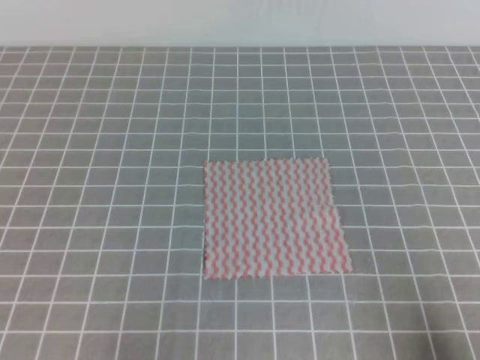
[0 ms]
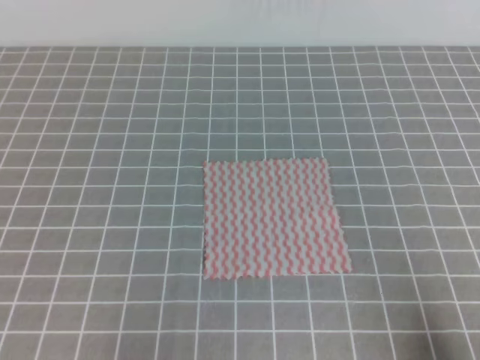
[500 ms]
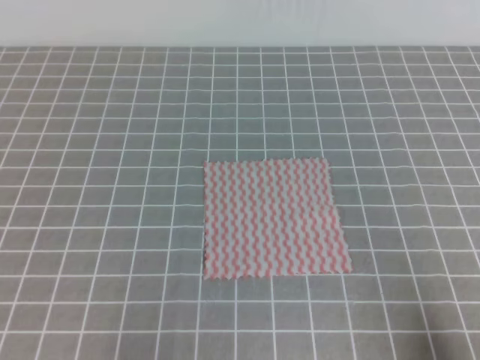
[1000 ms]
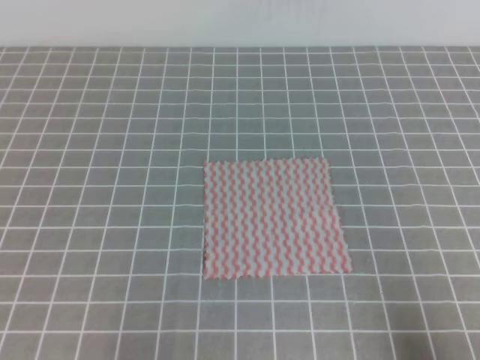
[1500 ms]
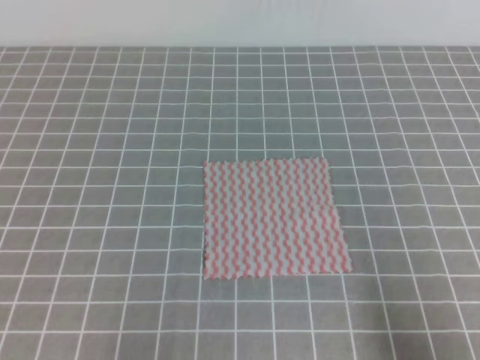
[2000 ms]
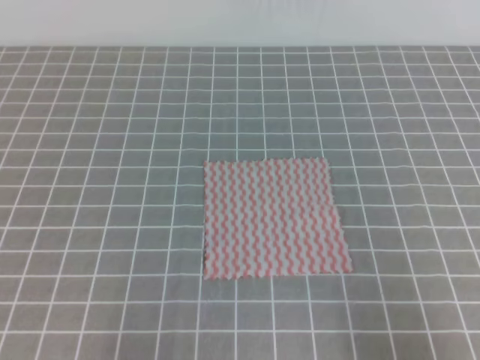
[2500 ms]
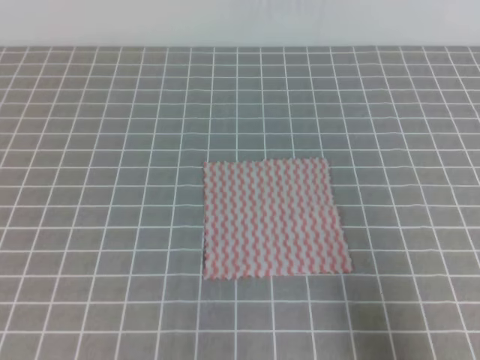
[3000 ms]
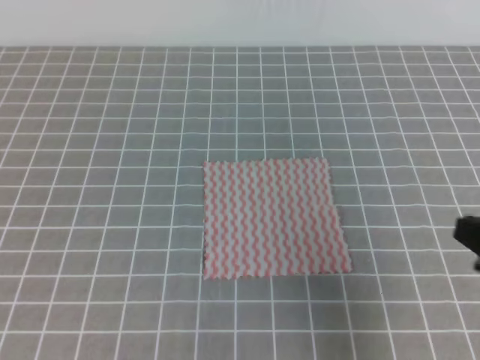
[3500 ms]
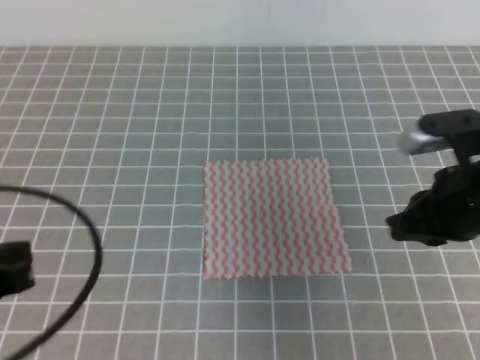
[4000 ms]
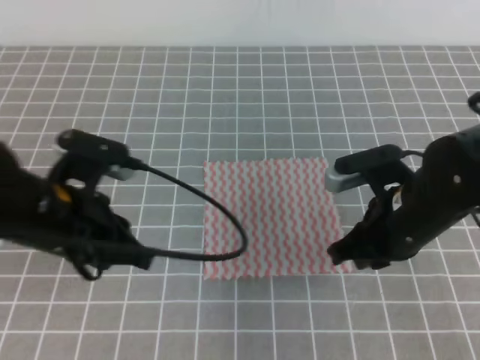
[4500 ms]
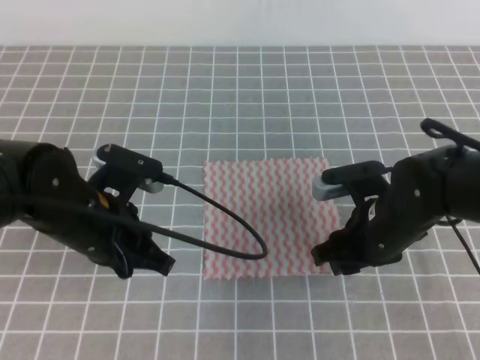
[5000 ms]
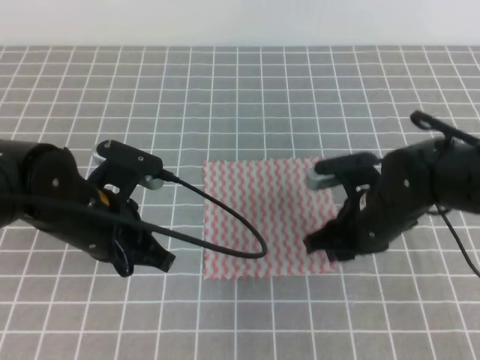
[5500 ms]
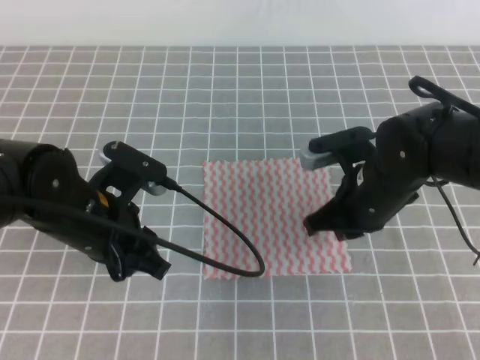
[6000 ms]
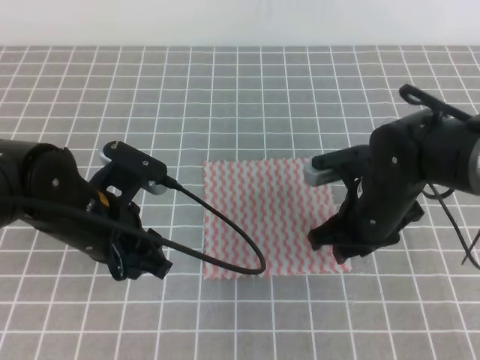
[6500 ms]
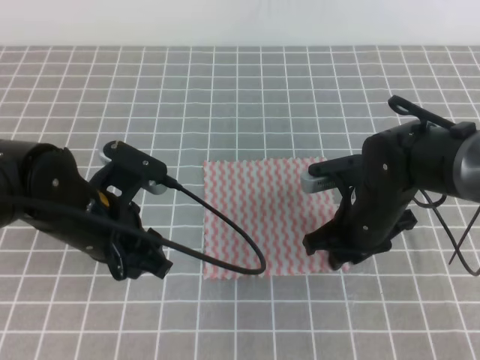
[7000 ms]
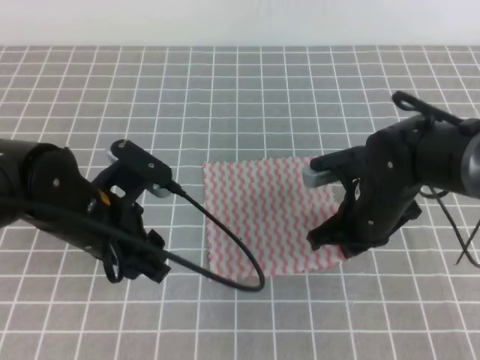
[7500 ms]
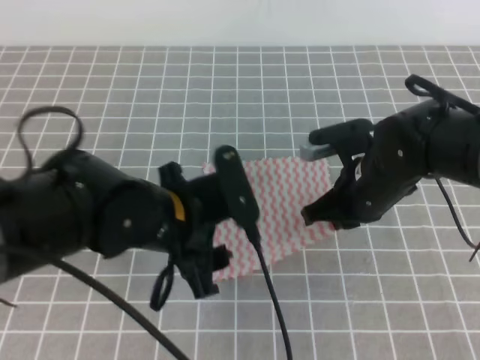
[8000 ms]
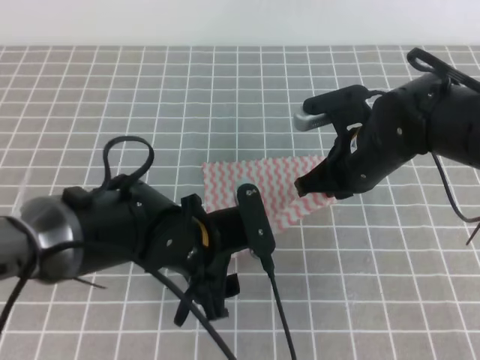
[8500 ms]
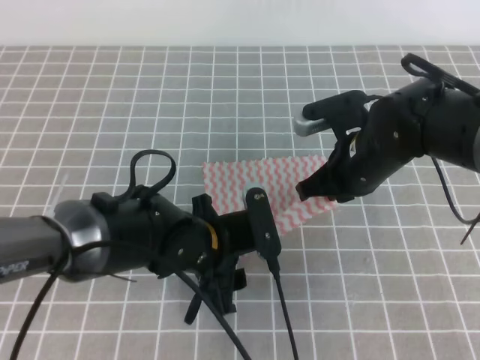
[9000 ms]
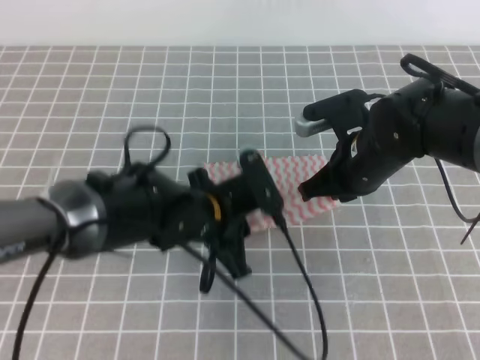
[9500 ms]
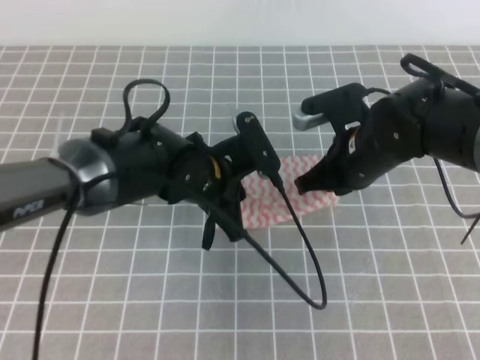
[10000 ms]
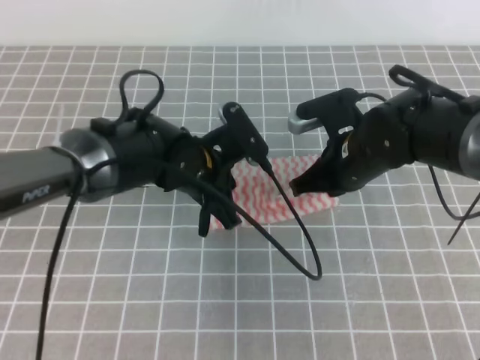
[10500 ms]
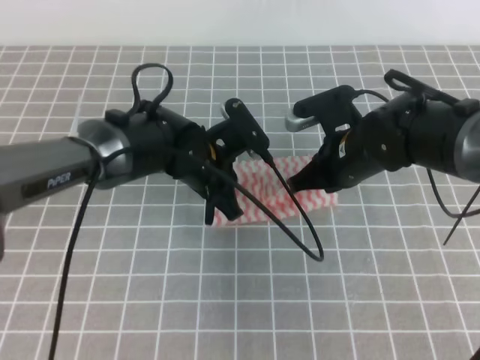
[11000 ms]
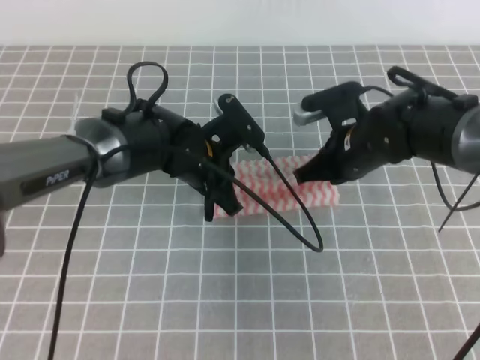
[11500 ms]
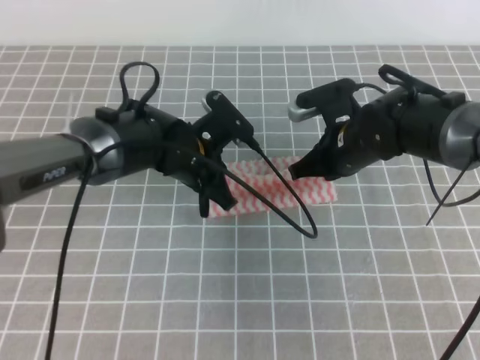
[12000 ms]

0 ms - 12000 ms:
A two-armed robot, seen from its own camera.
2000 ms - 4000 ms: The right gripper goes about 20 cm forward and to the left; the left gripper is displaced upward and forward by some 15 cm.
4000 ms - 6000 ms: The left gripper travels forward, to the right and downward by about 15 cm, and opens its fingers; the right gripper is displaced to the left, forward and downward by about 15 cm, and opens, then closes once more.
6000 ms - 8000 ms: The right gripper opens and closes again. The left gripper is displaced to the right by about 5 cm, and opens up.
8000 ms - 10000 ms: The left gripper travels forward by roughly 10 cm, and closes up.
10000 ms - 12000 ms: The left gripper travels forward by approximately 5 cm; the right gripper changes place by roughly 5 cm.

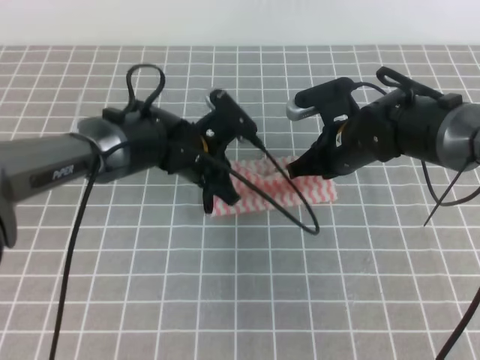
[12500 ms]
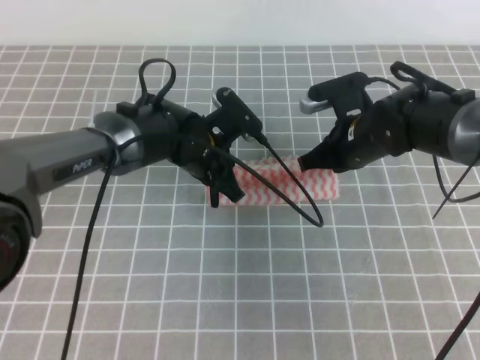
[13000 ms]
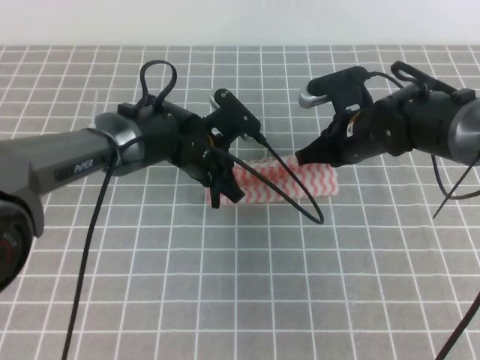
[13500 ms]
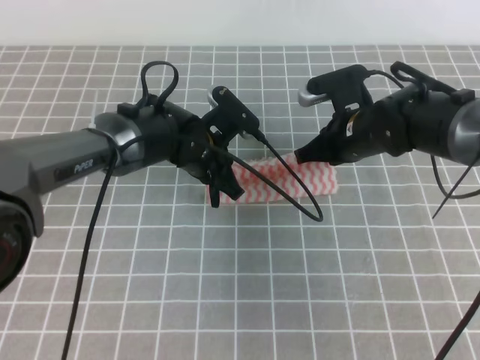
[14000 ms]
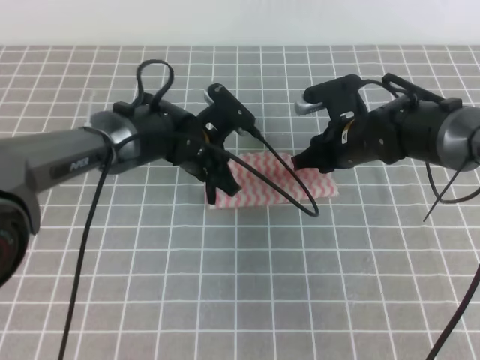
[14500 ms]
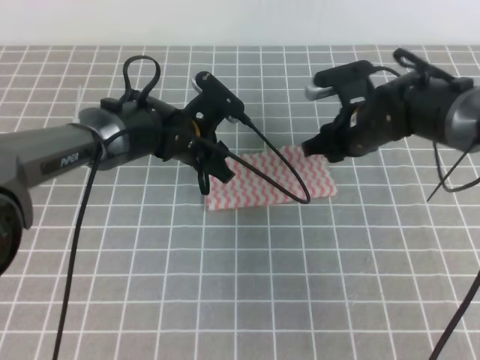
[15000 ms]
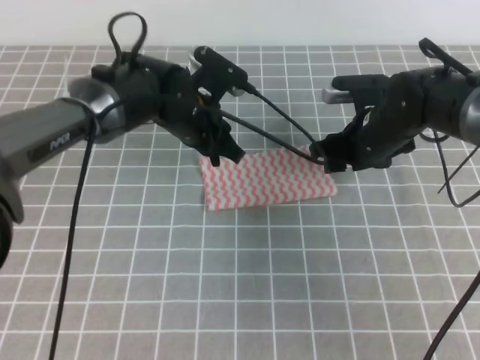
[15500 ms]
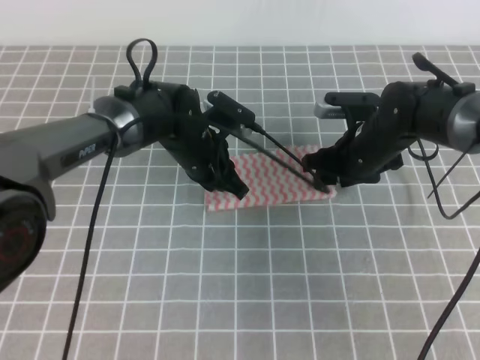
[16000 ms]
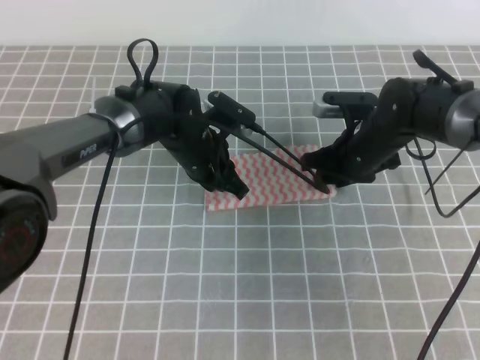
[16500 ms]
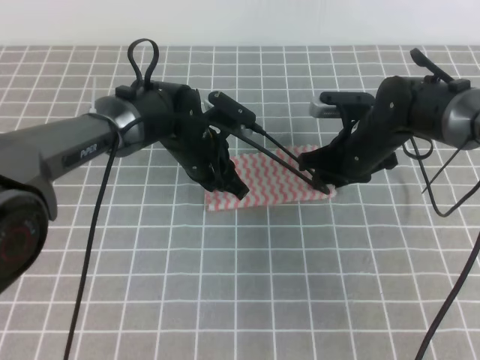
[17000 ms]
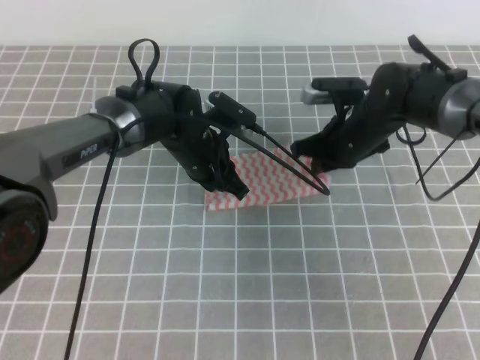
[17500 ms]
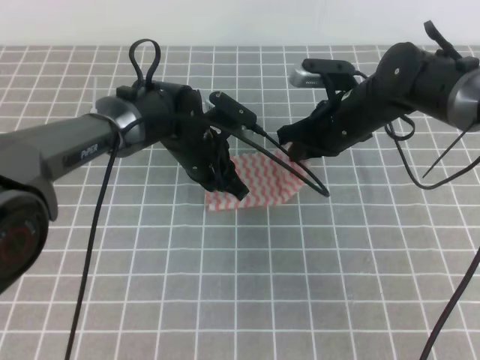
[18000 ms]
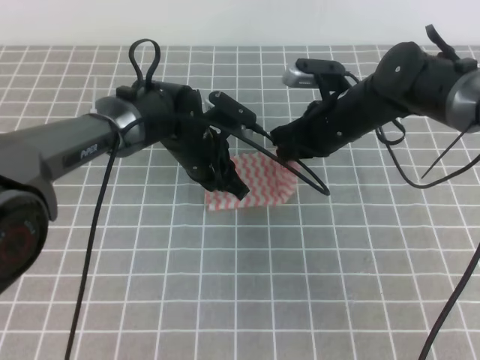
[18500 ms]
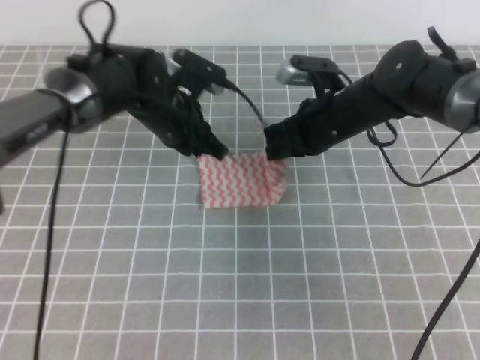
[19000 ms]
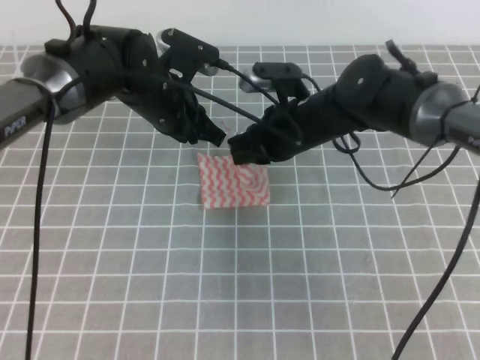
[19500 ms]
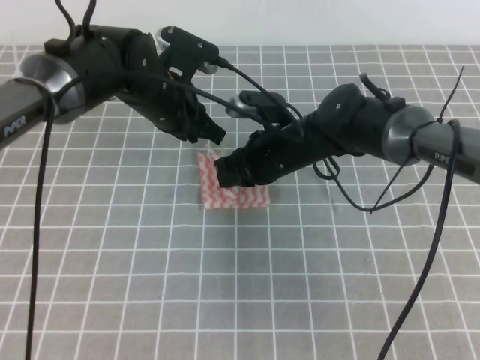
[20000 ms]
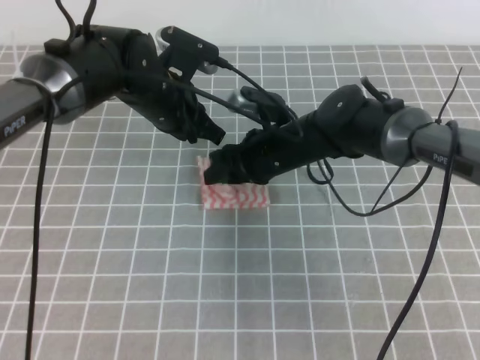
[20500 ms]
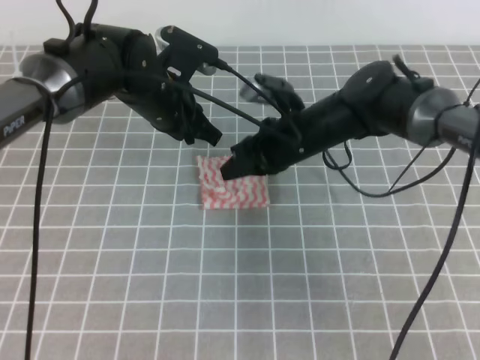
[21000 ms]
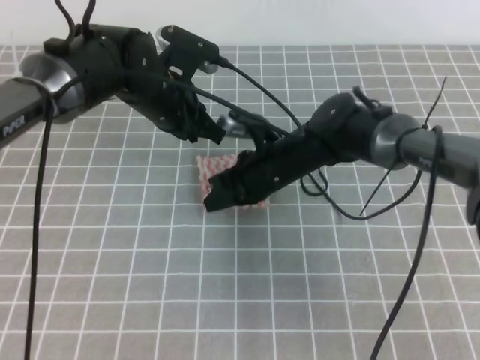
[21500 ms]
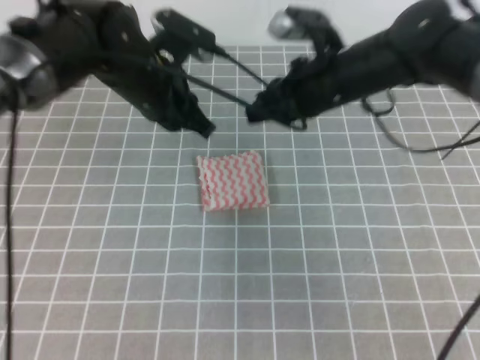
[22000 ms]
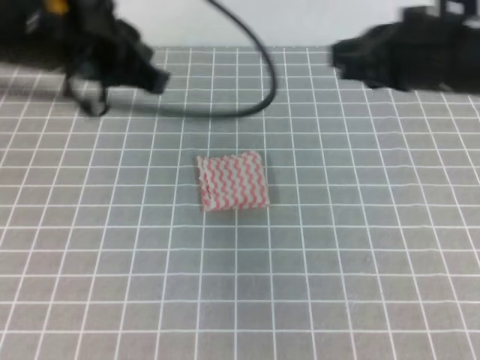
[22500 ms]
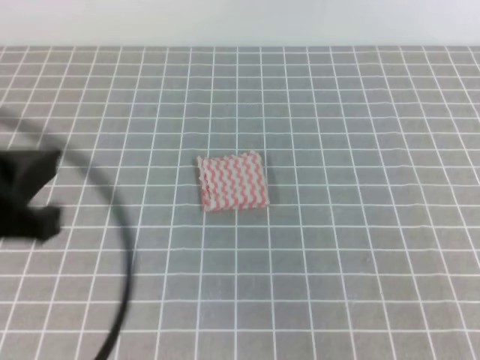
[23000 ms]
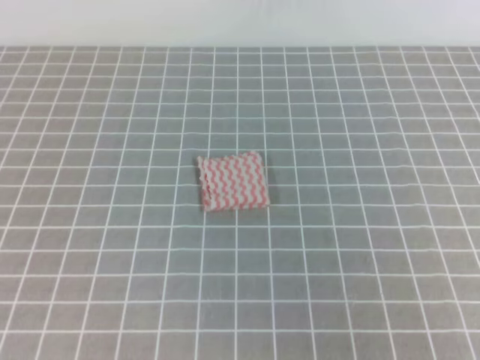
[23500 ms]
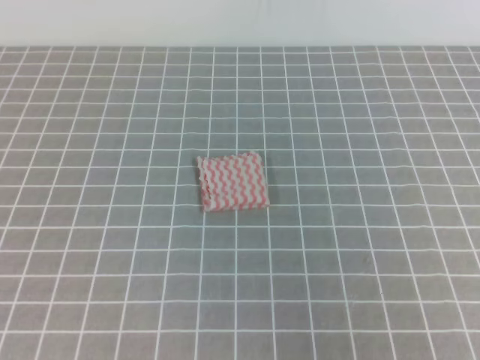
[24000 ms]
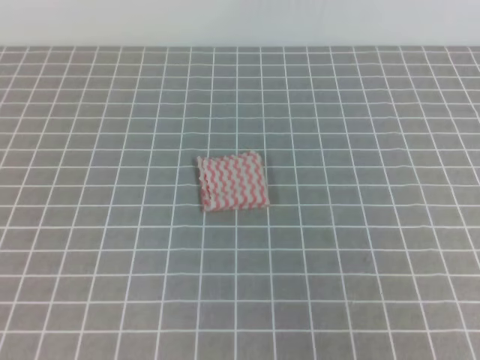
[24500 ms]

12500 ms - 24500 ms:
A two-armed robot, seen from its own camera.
12500 ms - 14500 ms: The right gripper opens its fingers.
14500 ms - 16500 ms: The left gripper opens, then closes again.
16500 ms - 18500 ms: The right gripper shifts by about 5 cm, and closes up.
18500 ms - 20500 ms: The left gripper travels upward by about 10 cm. Meanwhile the right gripper goes roughly 5 cm to the left, and opens up.
20500 ms - 22500 ms: The right gripper moves upward, to the right and backward, about 25 cm, and closes; the left gripper heads upward, backward and to the left, covering roughly 20 cm.
22500 ms - 24500 ms: The right gripper is displaced backward by some 25 cm. The left gripper moves backward and to the left, some 25 cm.

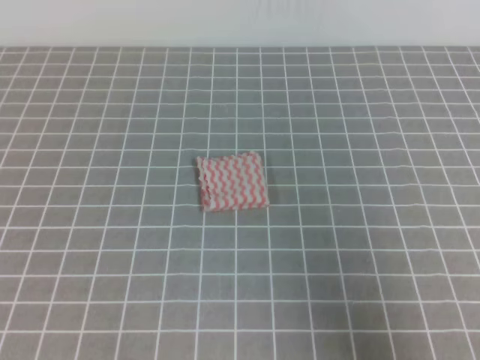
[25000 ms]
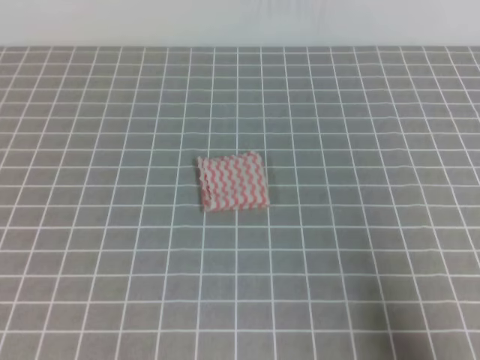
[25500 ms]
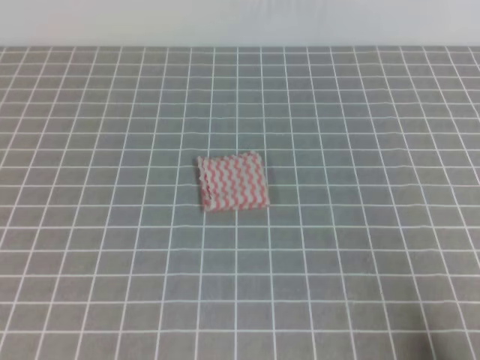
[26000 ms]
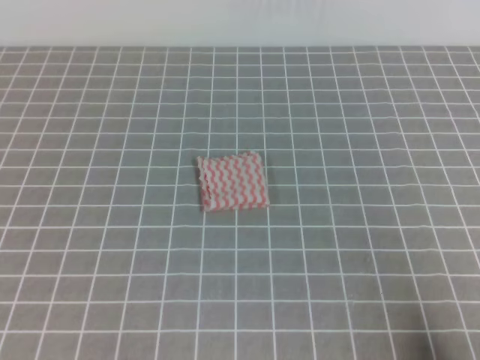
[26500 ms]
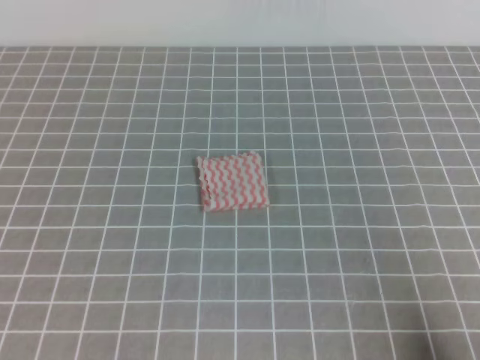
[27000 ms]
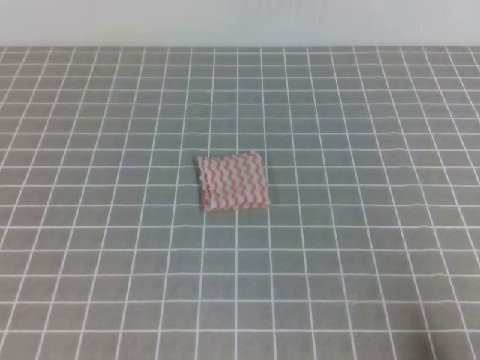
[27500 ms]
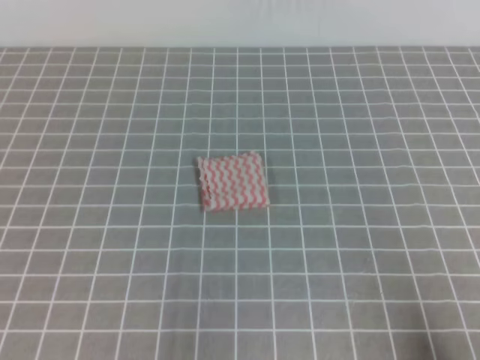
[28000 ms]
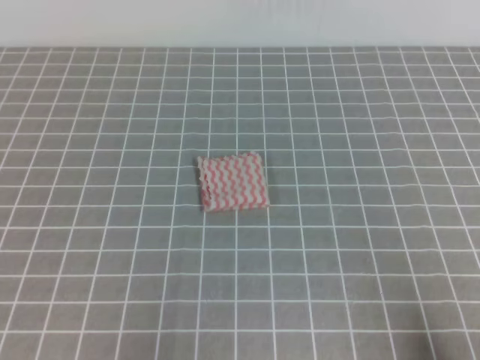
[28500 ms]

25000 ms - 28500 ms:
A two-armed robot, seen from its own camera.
Step, 25000 ms - 28500 ms: Fold the towel.
25000 ms - 27000 ms: The right gripper goes about 10 cm downward.
